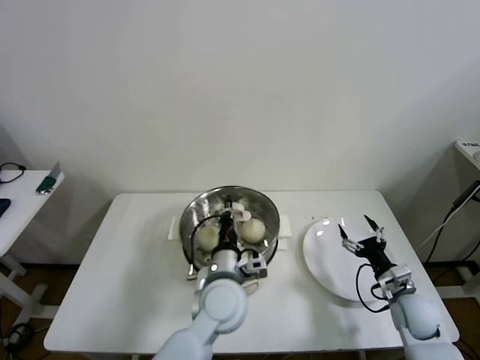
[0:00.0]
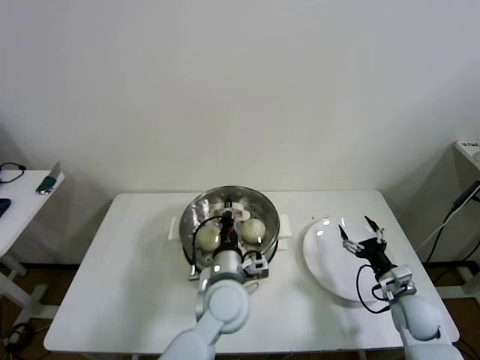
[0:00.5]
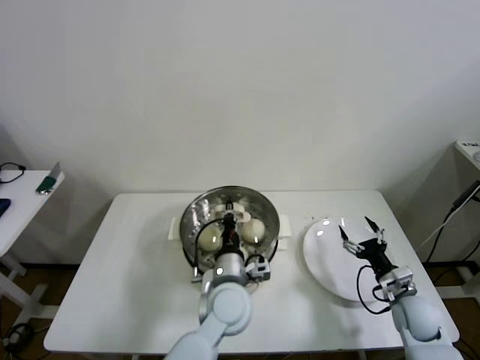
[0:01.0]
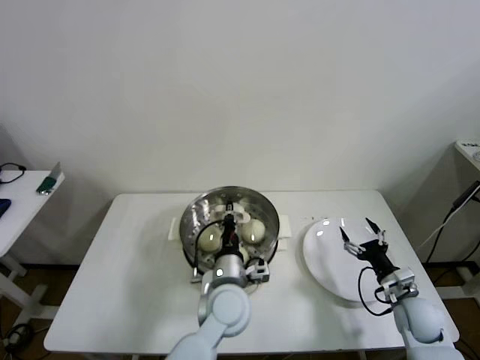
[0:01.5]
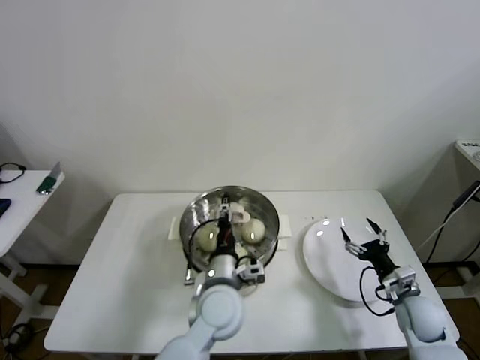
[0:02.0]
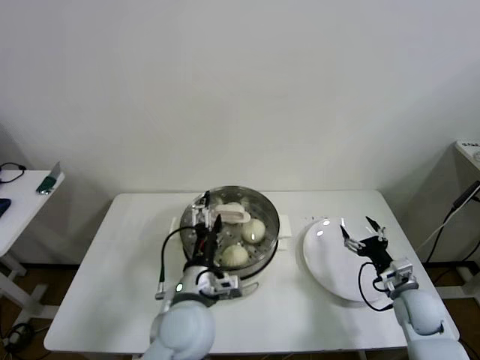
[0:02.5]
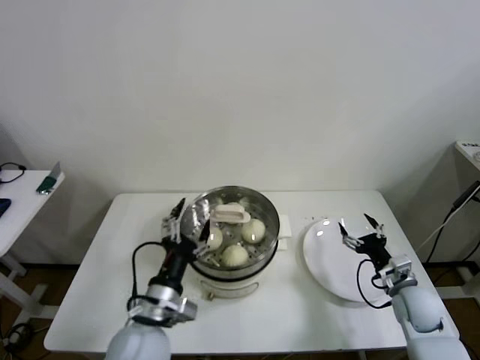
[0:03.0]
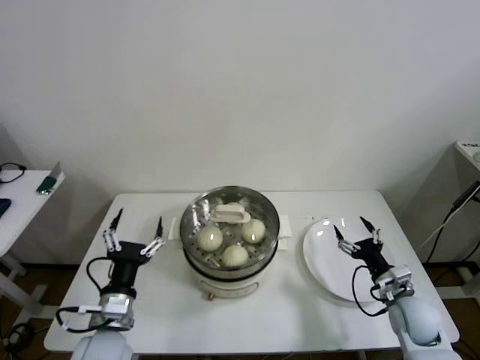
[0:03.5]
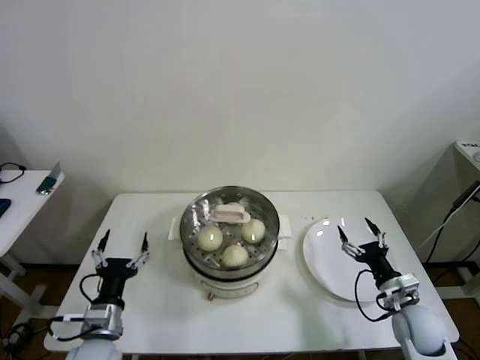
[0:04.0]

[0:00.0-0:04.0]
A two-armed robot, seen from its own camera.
Step, 0:00.0 to 0:02.5: Place the pot lid on the steamer with left gripper.
0:00.0 to 0:02.0: The left gripper opens its fingers.
0:02.0 to 0:04.0: The left gripper shifts approximately 25 cm to the left, and opens up.

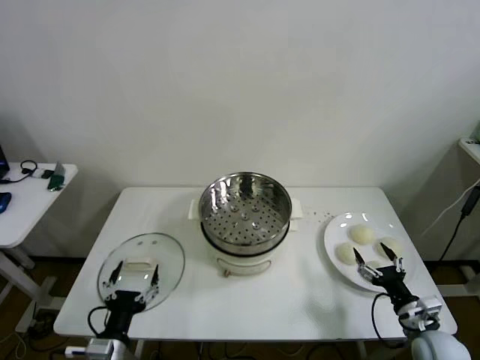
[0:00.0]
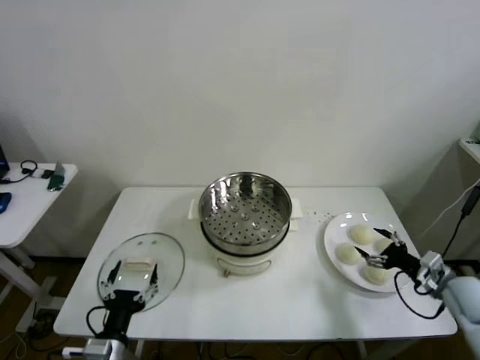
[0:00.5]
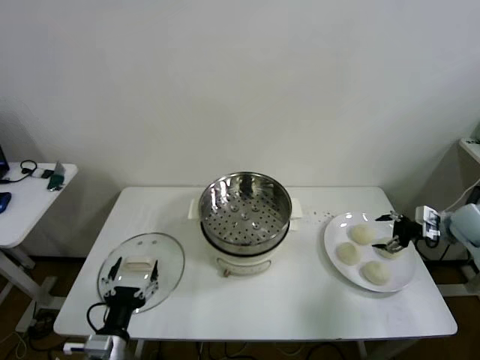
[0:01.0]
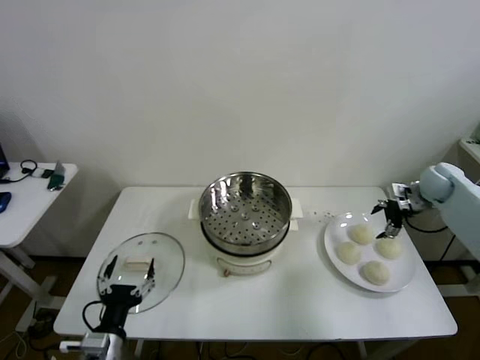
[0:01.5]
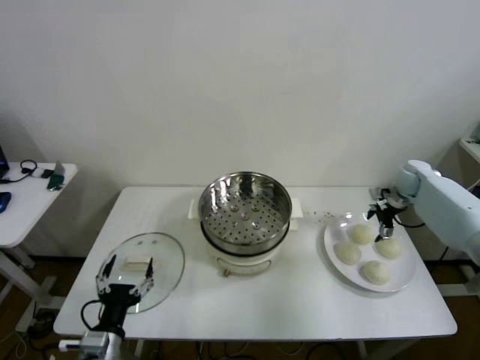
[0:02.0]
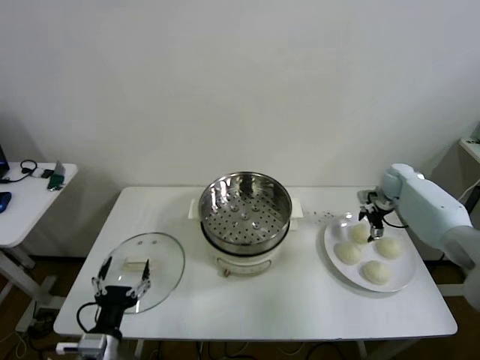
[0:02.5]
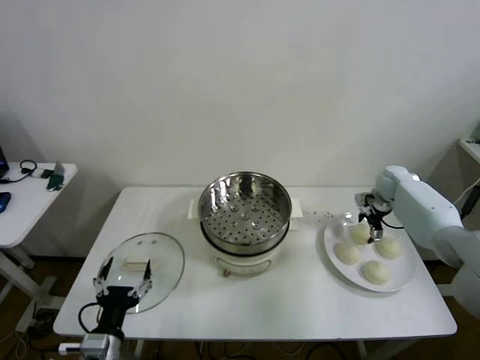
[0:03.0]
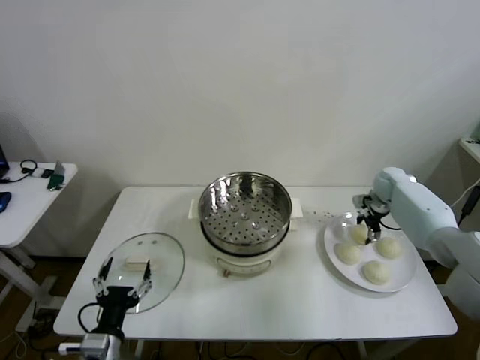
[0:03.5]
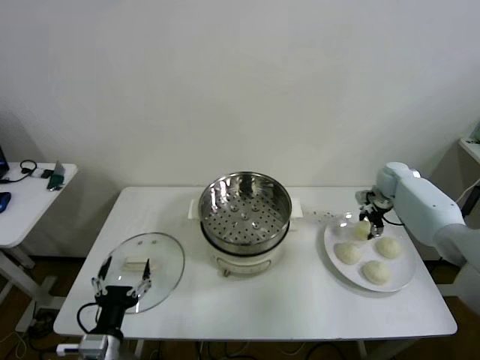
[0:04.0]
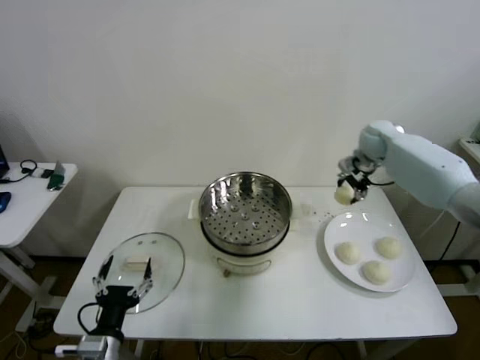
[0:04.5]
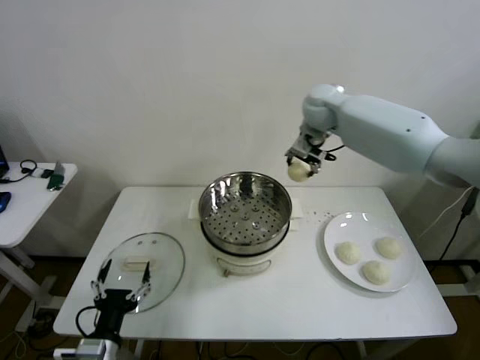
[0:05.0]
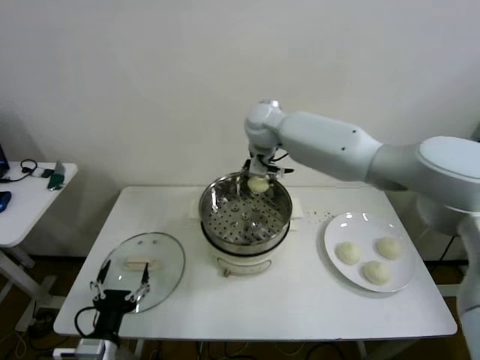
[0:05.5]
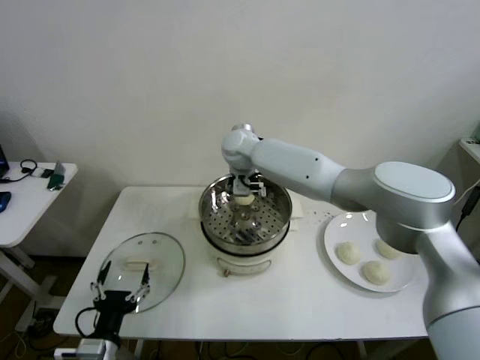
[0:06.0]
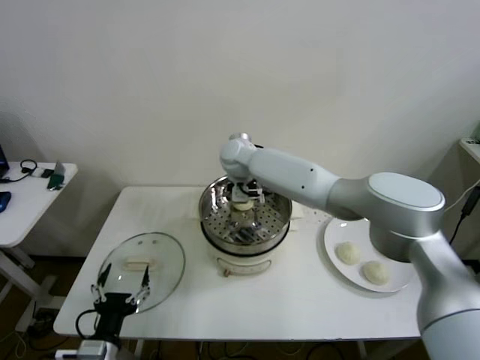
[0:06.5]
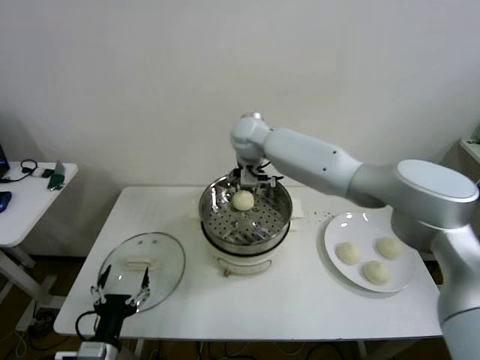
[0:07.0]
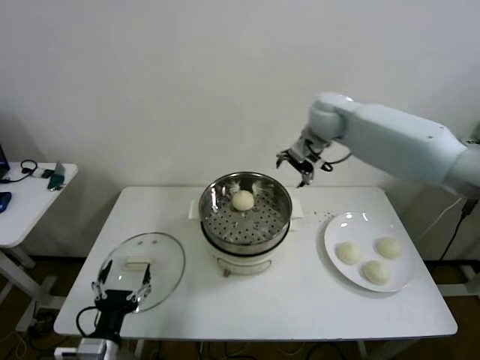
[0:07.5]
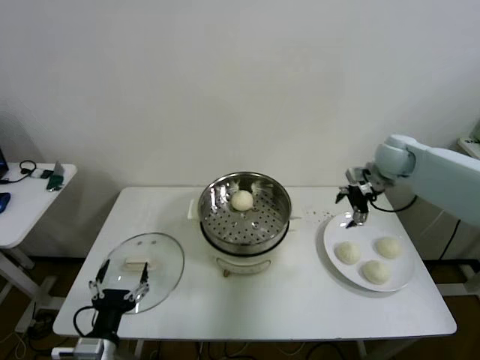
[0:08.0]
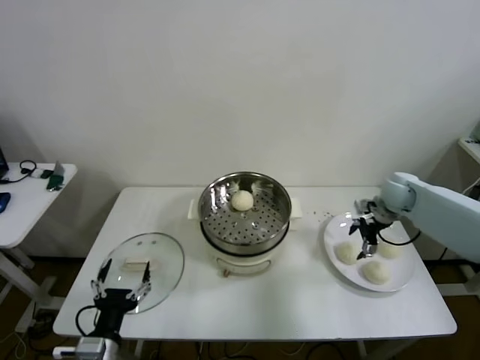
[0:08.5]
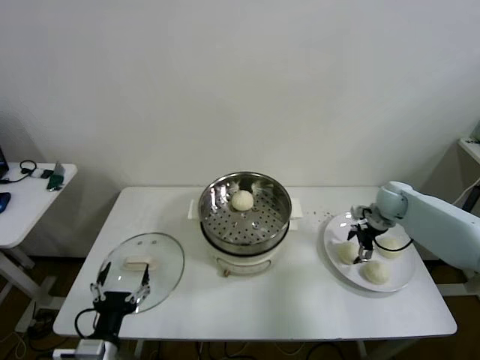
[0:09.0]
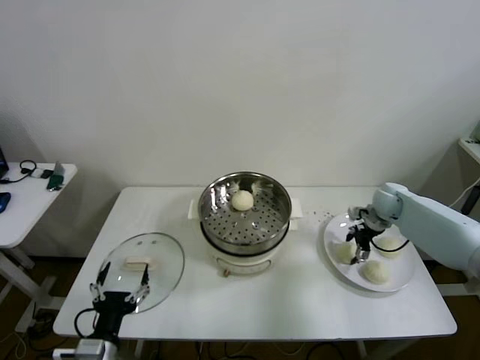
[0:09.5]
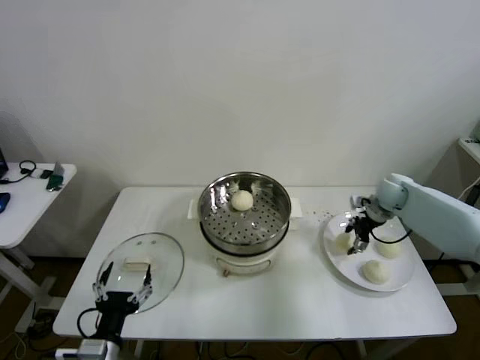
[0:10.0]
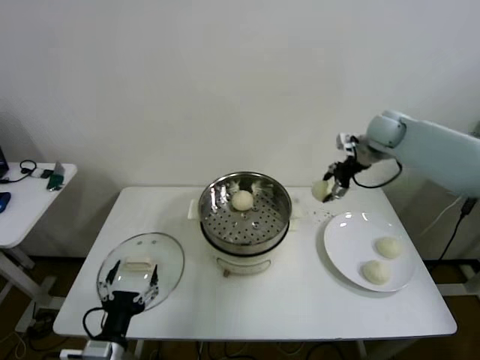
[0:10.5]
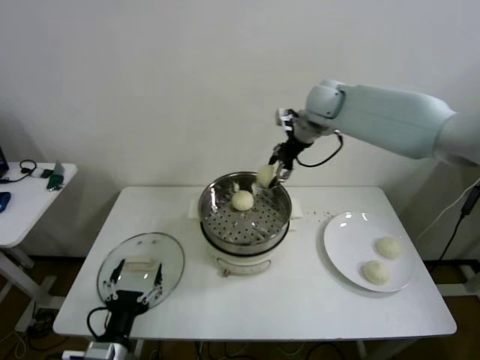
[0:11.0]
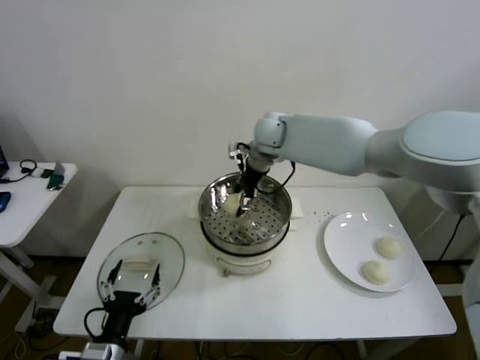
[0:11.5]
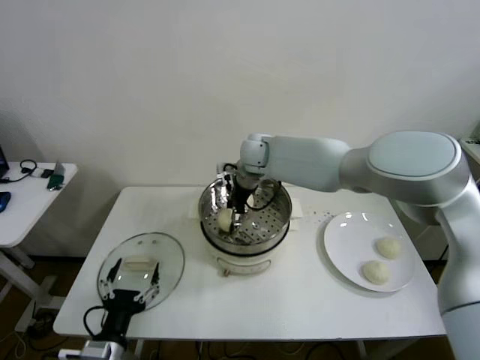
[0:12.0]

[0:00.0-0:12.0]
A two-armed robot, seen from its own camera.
Step, 0:00.0 to 0:03.5: Grasp the baozi in the plate with right gripper.
Step, 0:04.0 to 0:06.5: Place the baozi on the steamer with right gripper.
Step, 0:07.0 to 0:09.5: Grasp the baozi in the plate with right gripper.
0:02.0 to 0:04.0: The right gripper closes up.
0:04.0 to 0:06.0: The right gripper shifts some 40 cm to the left.
0:06.0 to 0:08.0: The right gripper heads to the right, covering some 40 cm, and opens.
0:08.0 to 0:10.0: The right gripper shifts approximately 10 cm downward, and closes.
0:10.0 to 0:12.0: The right gripper shifts roughly 35 cm to the left.

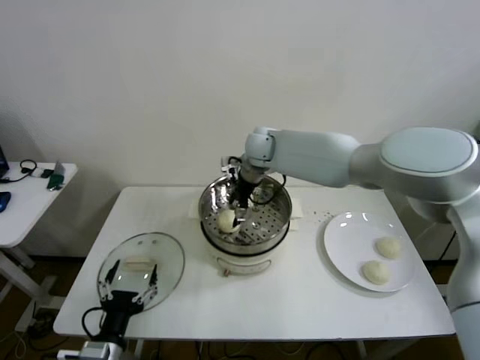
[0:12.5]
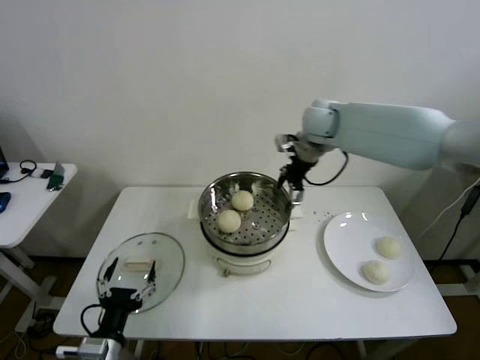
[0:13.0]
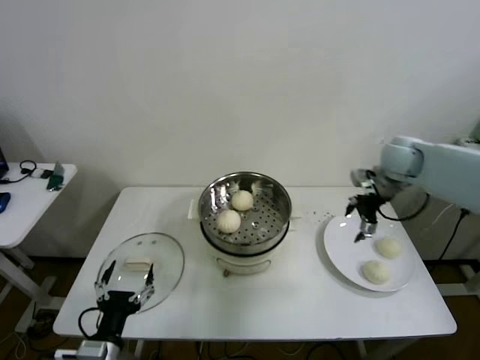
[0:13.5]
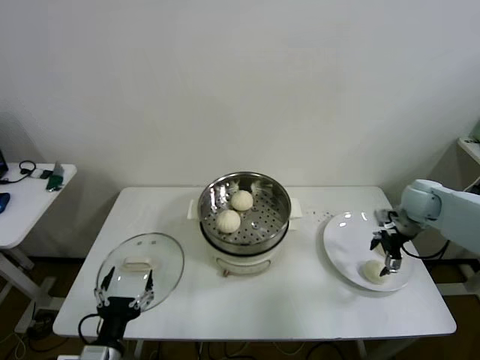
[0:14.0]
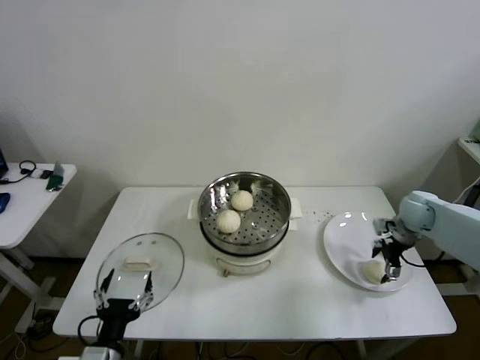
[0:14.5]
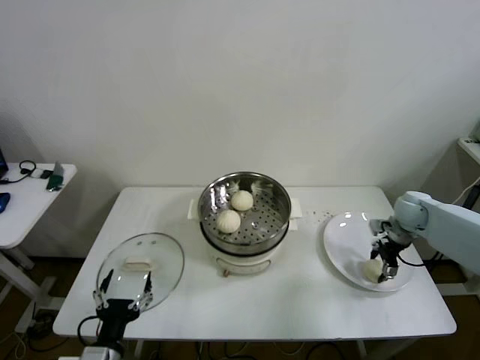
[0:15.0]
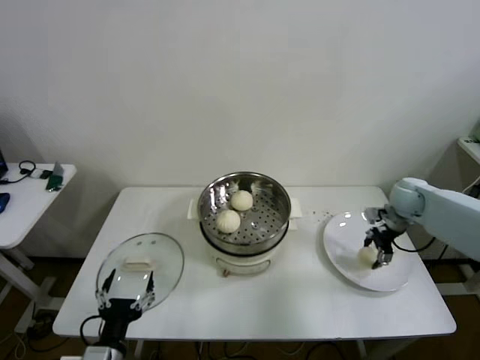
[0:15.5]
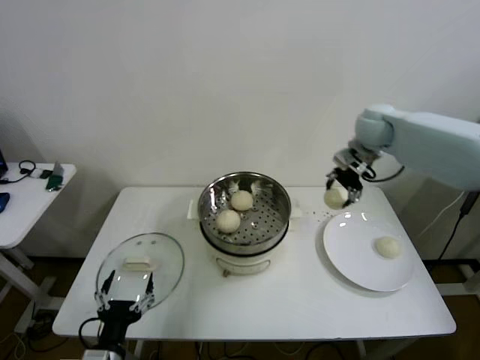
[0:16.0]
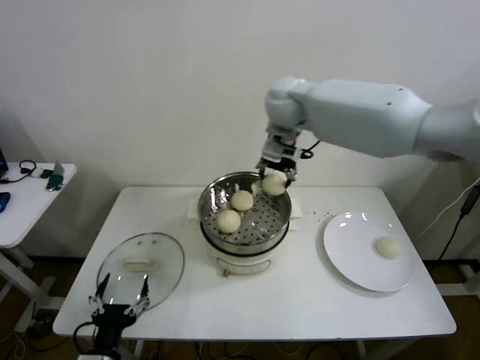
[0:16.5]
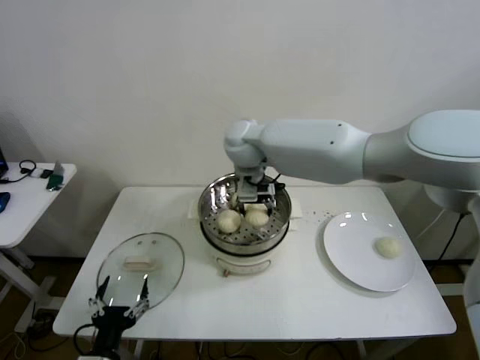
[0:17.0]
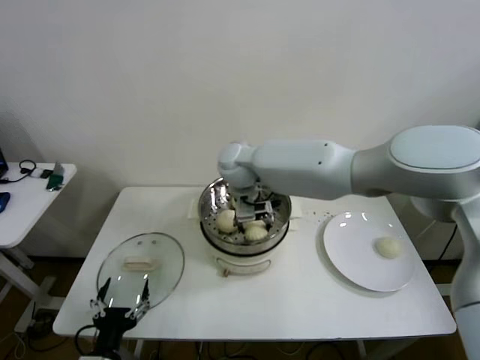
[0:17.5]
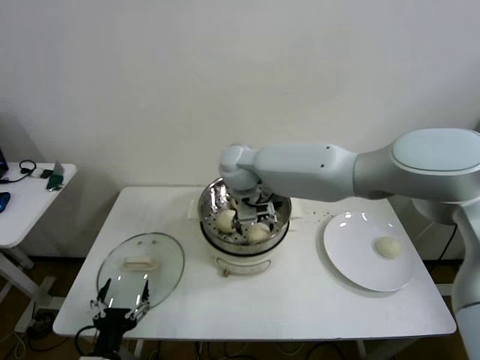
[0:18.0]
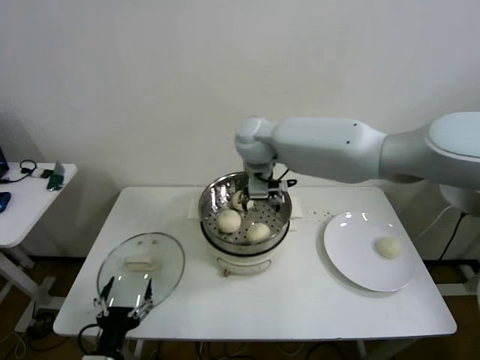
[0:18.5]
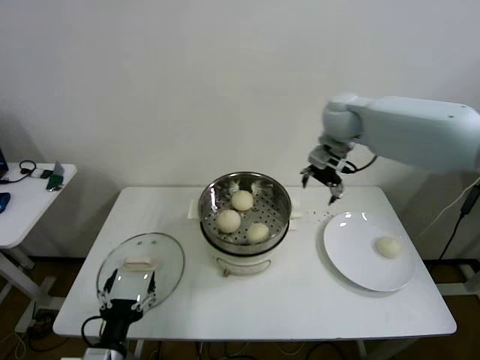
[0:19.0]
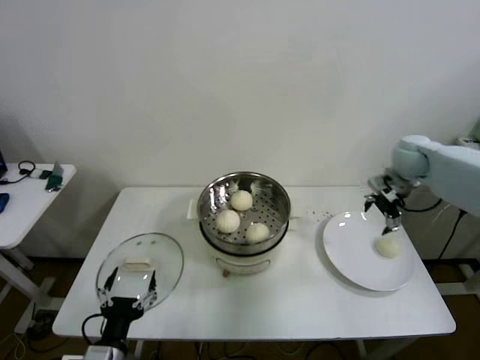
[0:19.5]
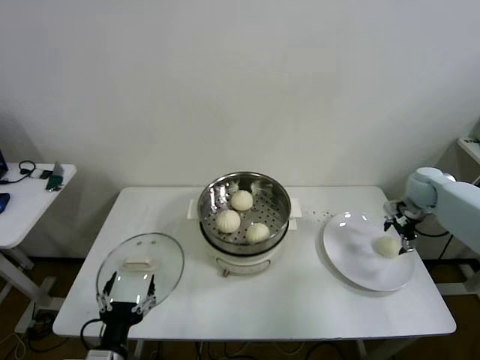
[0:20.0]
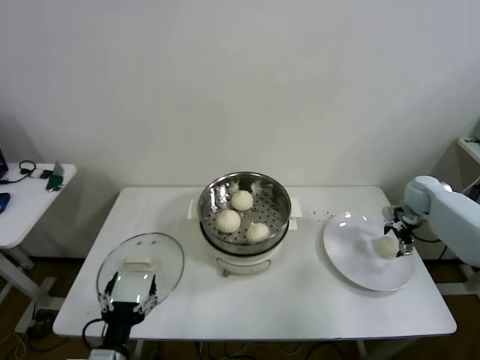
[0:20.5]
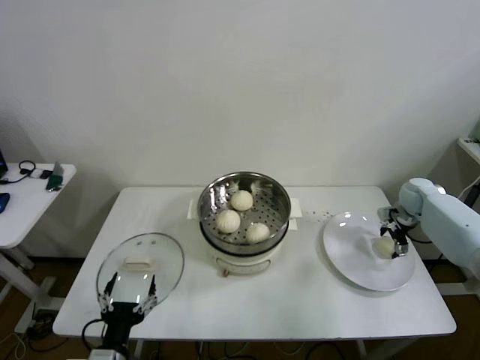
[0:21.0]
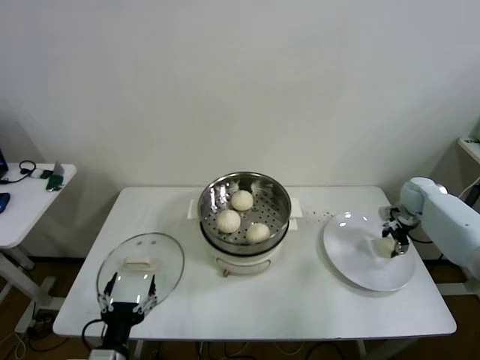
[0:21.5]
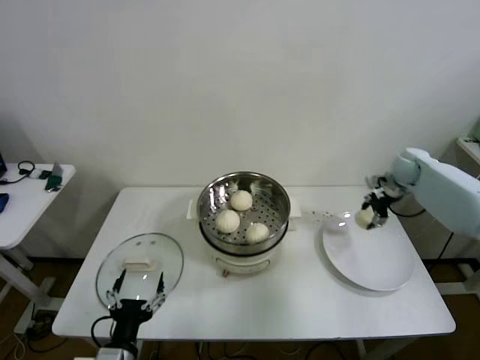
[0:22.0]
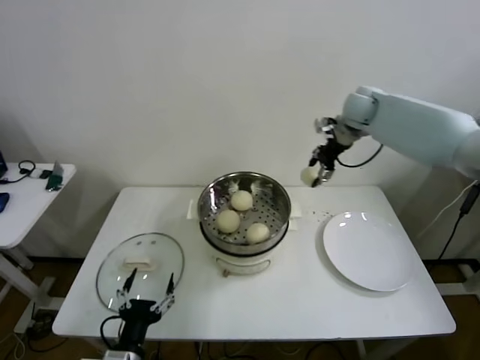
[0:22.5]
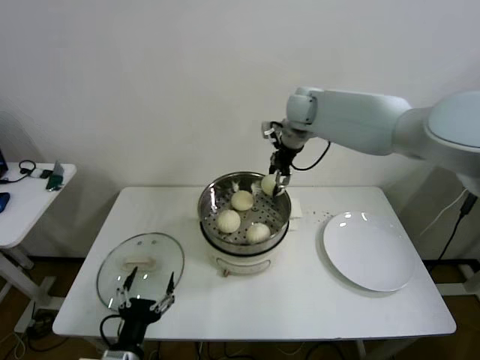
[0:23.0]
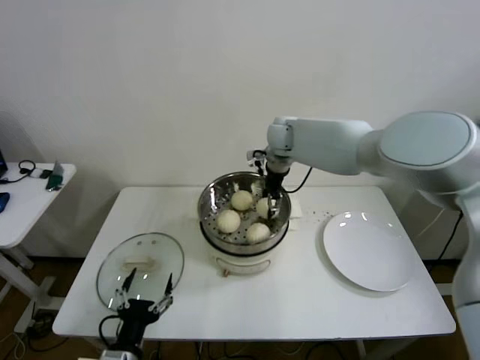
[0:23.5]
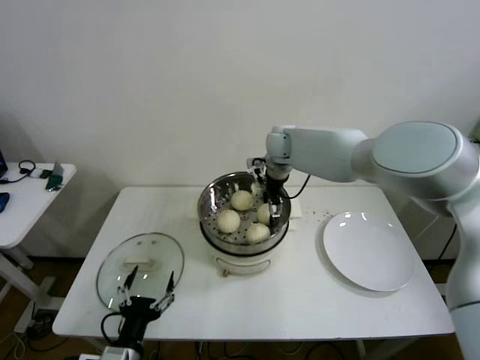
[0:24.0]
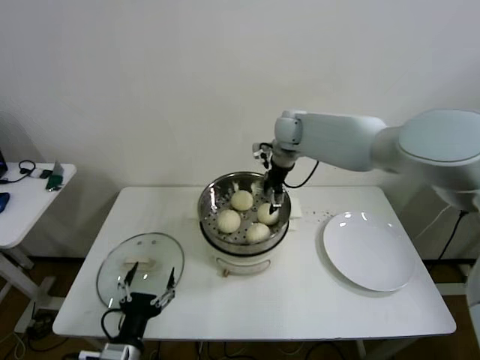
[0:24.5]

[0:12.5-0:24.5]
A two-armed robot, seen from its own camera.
Step, 0:12.5 to 0:14.5: Grasp the baozi in the plate with right gripper.
Step, 0:15.0 to 0:17.5: Place the baozi on the steamer with right gripper.
Step, 0:18.0 to 0:21.5: Grasp the baozi in the plate with right gripper.
Step, 0:22.0 to 0:24.0: Place the baozi on the steamer with right gripper.
0:12.5 to 0:14.5: The right gripper shifts some 40 cm to the right.
0:14.5 to 0:16.5: The right gripper goes approximately 50 cm to the left and upward, and closes its fingers.
0:16.5 to 0:18.5: The right gripper moves downward, roughly 5 cm, and opens up.
0:18.5 to 0:20.5: The right gripper travels to the right and downward by roughly 50 cm.
0:20.5 to 0:22.5: The right gripper is displaced upward and to the left by approximately 30 cm, and closes its fingers.
0:22.5 to 0:24.5: The right gripper shifts approximately 15 cm to the left, and opens up.
